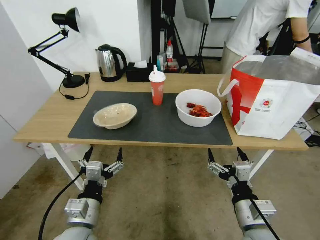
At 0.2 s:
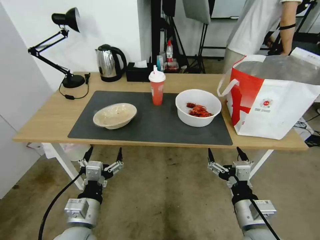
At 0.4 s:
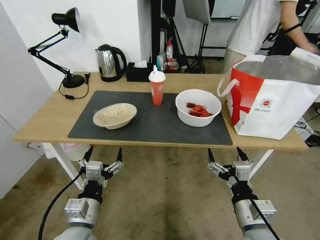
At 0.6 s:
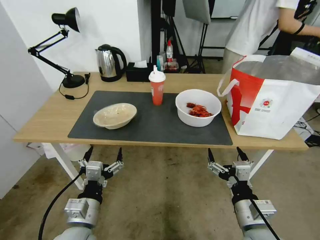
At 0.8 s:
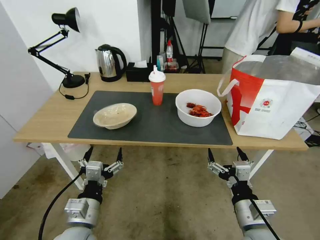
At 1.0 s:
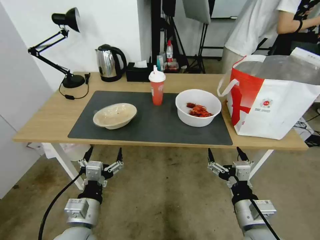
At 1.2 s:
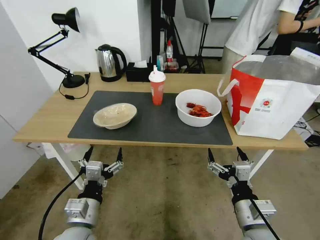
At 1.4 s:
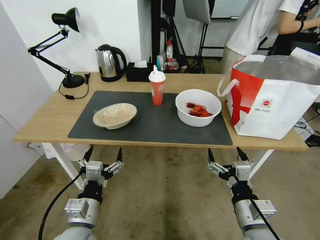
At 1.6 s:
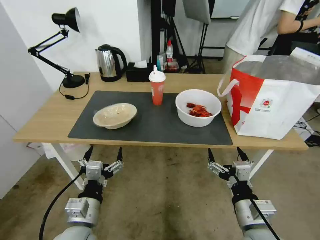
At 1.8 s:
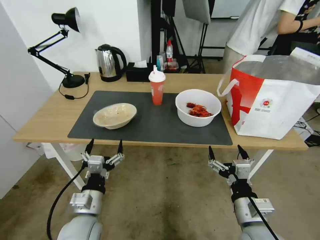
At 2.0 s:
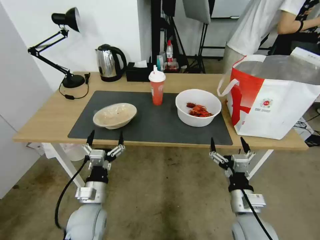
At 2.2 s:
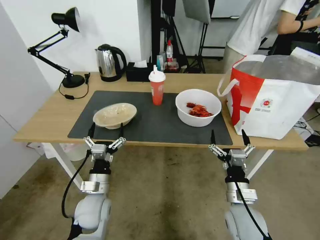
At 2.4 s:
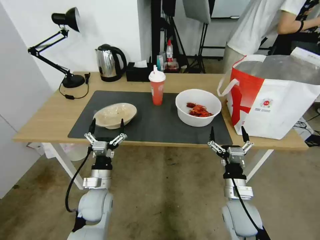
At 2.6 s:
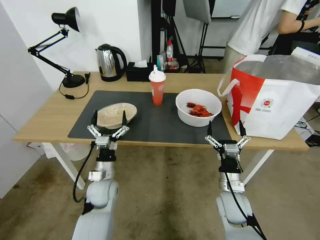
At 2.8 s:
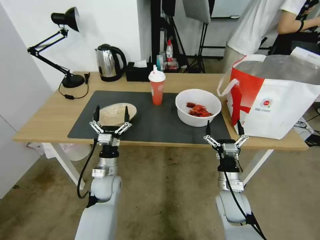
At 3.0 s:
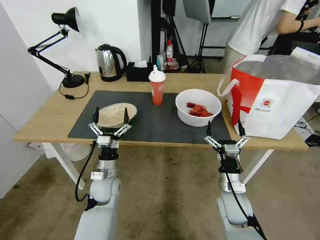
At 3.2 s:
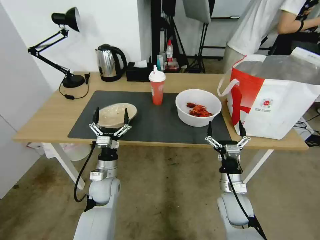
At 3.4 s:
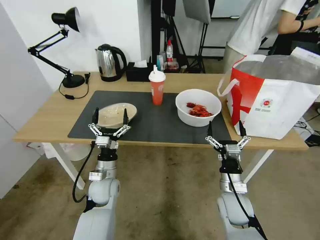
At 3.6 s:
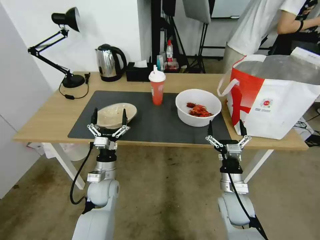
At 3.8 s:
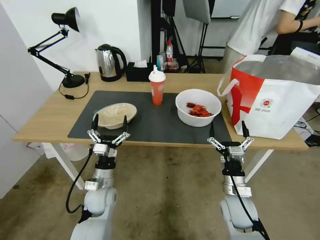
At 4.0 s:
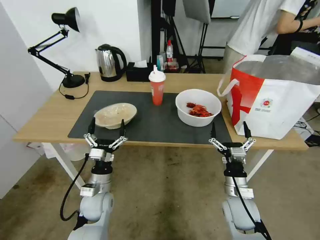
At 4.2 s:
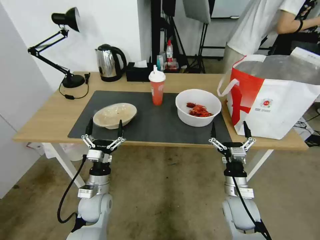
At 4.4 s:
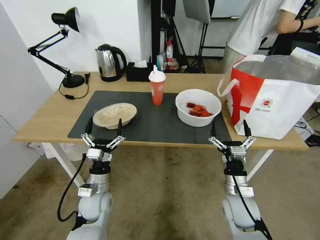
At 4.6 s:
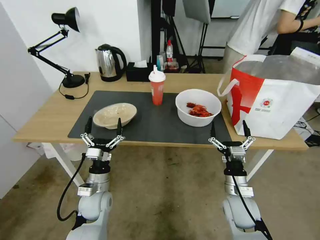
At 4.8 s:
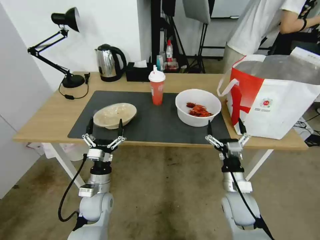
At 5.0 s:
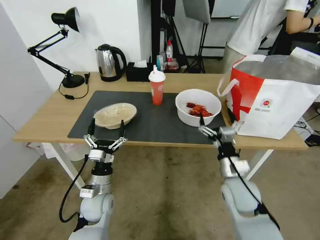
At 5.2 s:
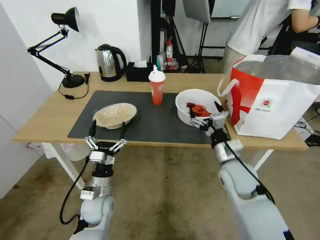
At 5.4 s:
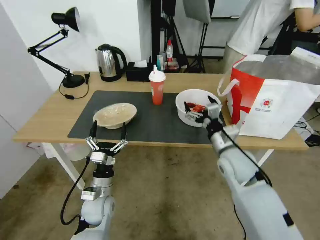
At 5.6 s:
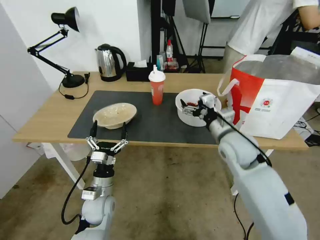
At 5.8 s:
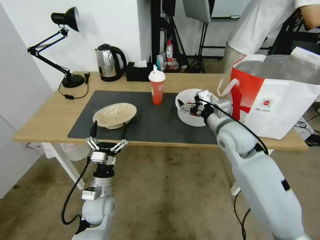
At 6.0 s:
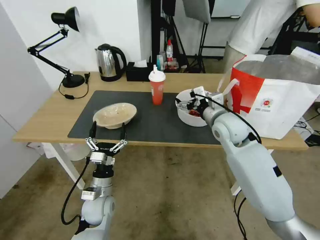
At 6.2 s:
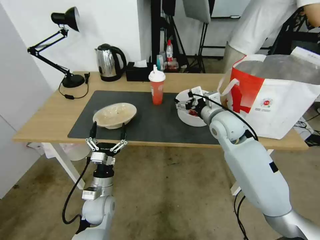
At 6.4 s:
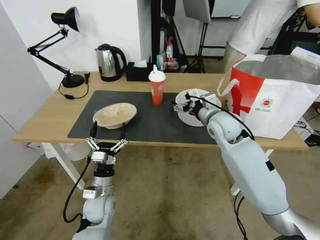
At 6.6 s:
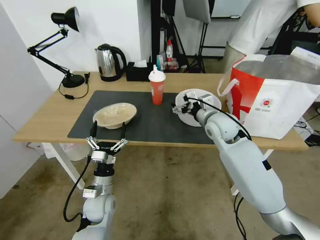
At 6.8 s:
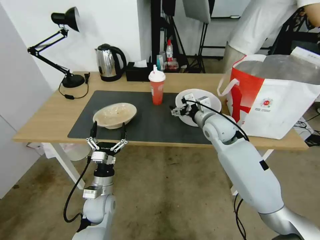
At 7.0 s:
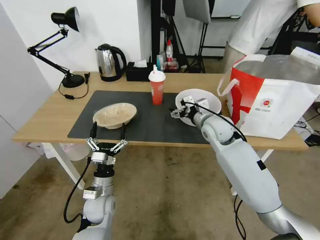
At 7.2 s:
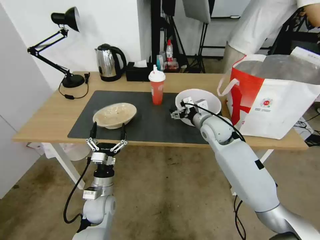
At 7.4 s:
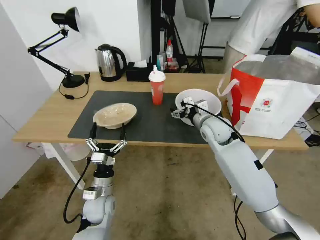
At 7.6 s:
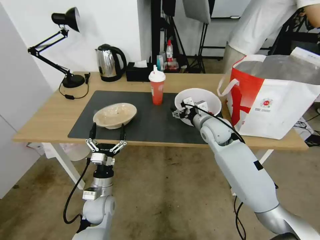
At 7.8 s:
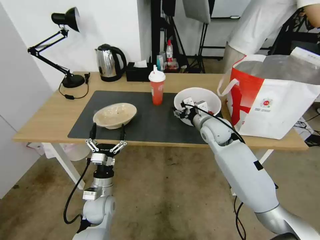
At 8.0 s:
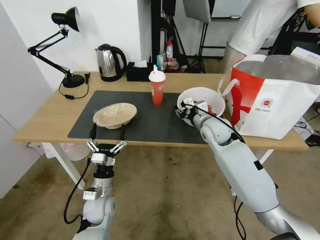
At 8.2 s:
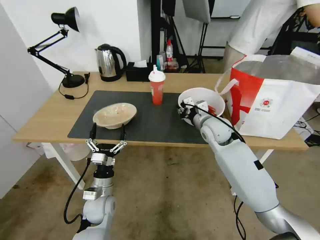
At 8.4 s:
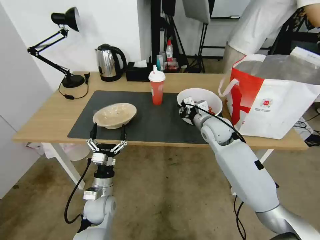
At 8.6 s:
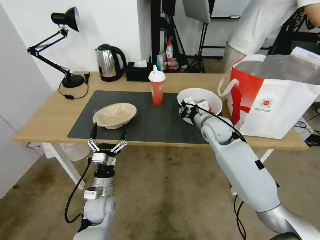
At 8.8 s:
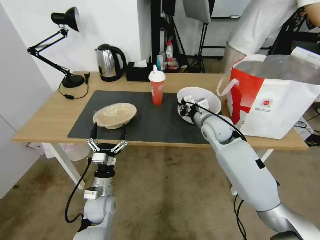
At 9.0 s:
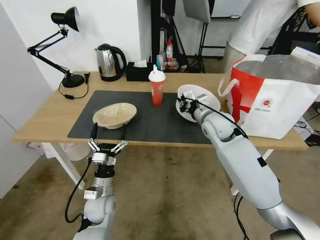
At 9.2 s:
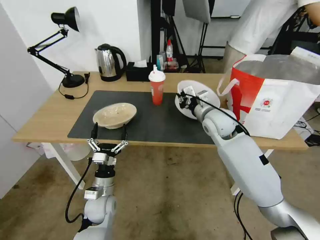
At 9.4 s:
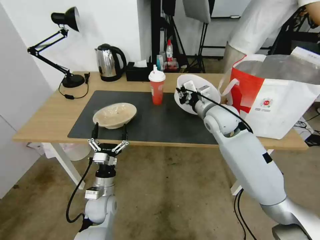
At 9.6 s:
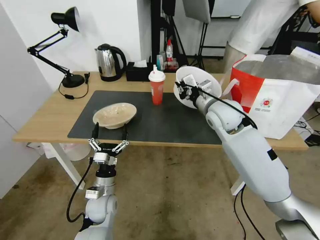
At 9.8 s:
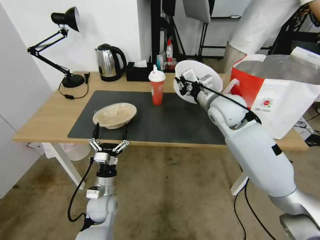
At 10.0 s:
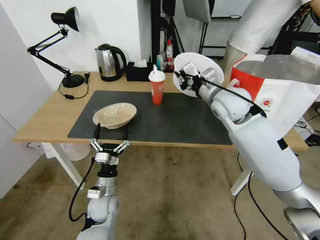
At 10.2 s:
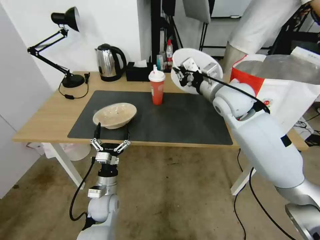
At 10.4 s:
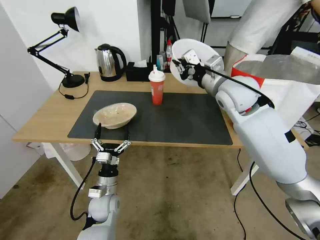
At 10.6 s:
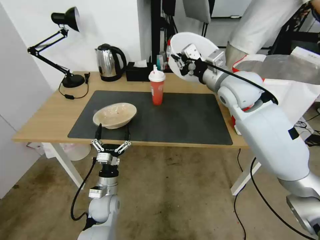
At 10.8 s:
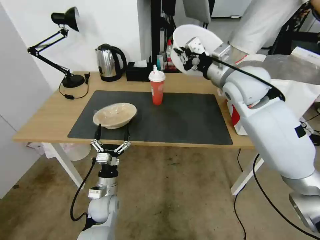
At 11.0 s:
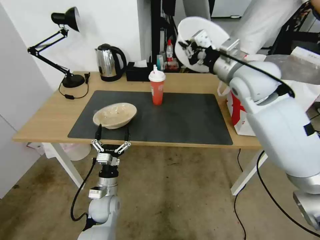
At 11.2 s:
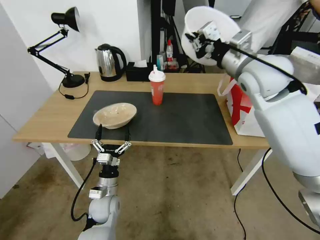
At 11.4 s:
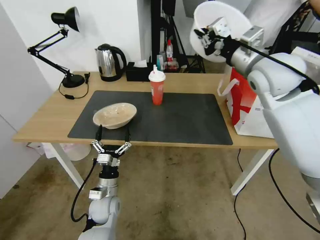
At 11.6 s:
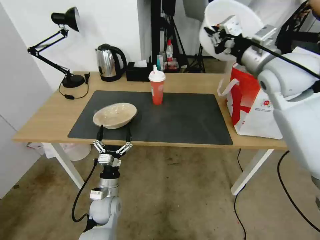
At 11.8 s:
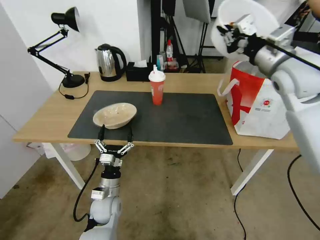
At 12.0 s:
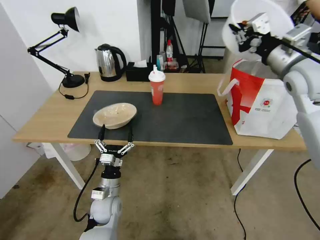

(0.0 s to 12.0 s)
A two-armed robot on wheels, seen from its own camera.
Task of the whole recording: Pick up the trash from the table and place it into the takeout bag.
1.6 s - 3.0 s: The two grippers go roughly 15 cm forward and downward.
3.0 s - 4.4 s: The left gripper changes place by some 5 cm.
4.4 s - 6.0 s: The right gripper heads upward and forward, covering about 25 cm.
6.0 s - 7.6 s: The right gripper goes about 5 cm downward.
7.6 s - 9.0 s: The right gripper closes up.
9.0 s - 10.4 s: The right gripper is displaced upward by some 15 cm.
10.4 s - 12.0 s: The right gripper shifts some 15 cm to the right and upward.

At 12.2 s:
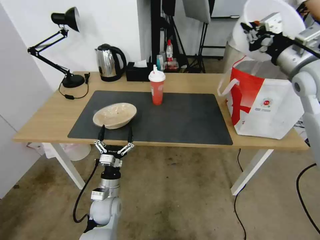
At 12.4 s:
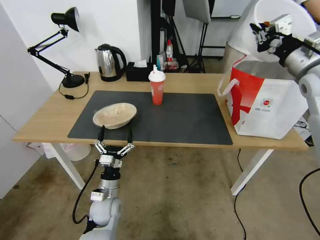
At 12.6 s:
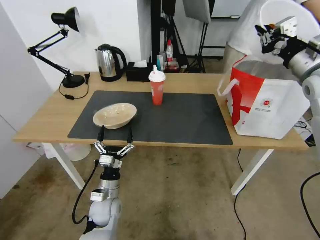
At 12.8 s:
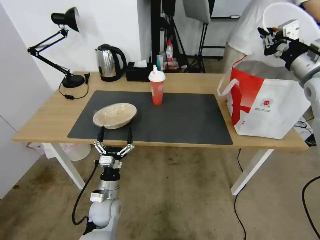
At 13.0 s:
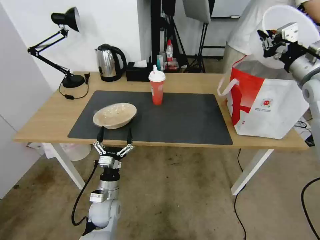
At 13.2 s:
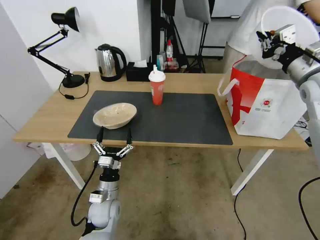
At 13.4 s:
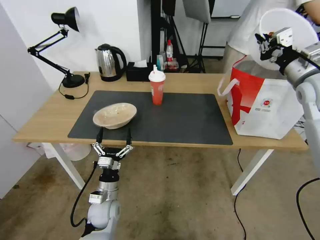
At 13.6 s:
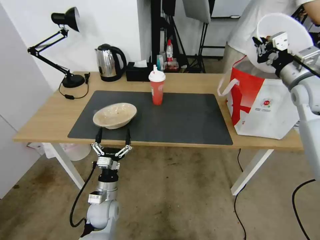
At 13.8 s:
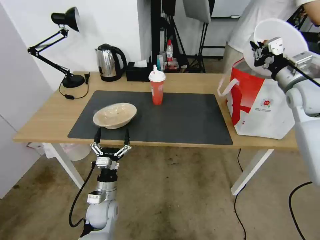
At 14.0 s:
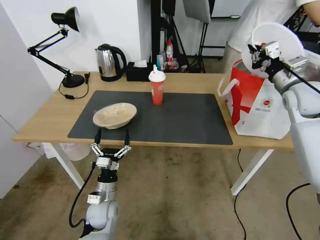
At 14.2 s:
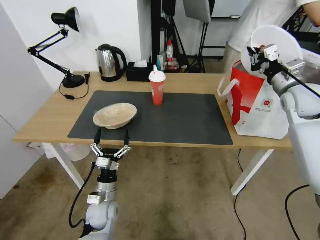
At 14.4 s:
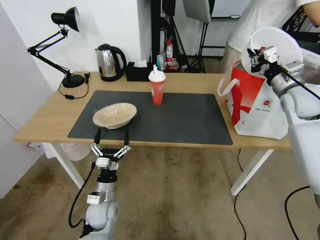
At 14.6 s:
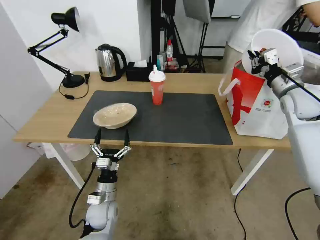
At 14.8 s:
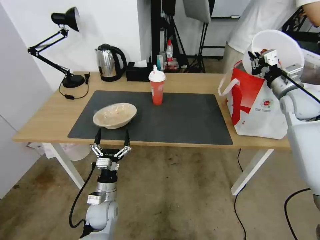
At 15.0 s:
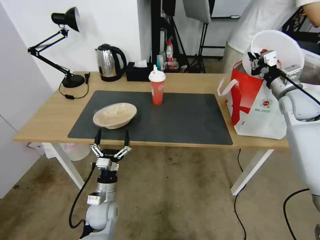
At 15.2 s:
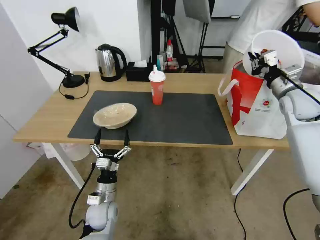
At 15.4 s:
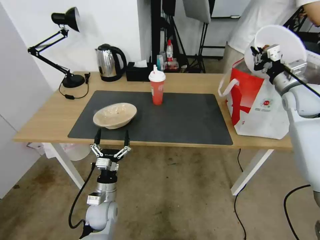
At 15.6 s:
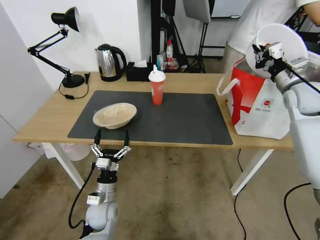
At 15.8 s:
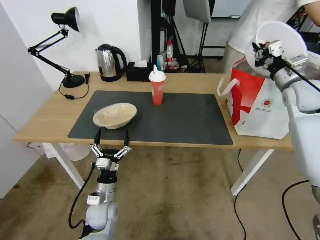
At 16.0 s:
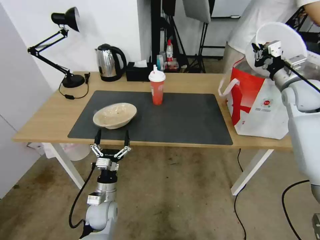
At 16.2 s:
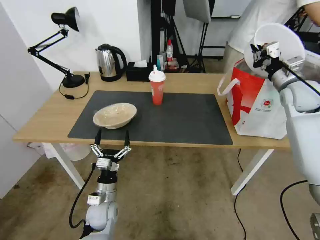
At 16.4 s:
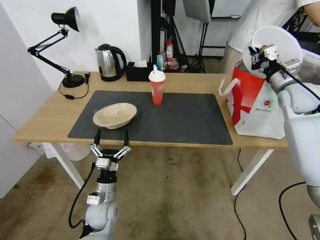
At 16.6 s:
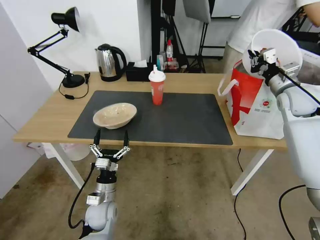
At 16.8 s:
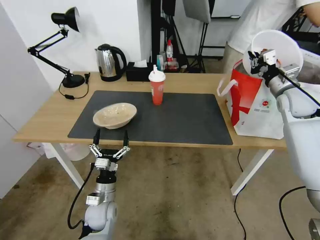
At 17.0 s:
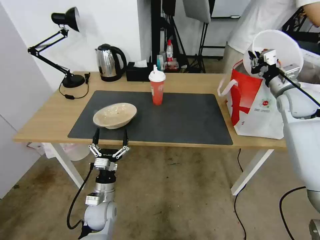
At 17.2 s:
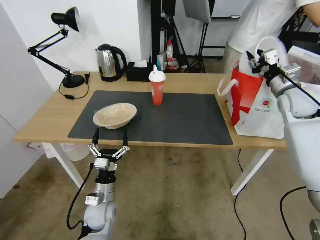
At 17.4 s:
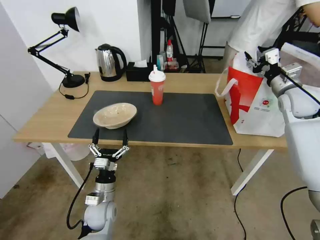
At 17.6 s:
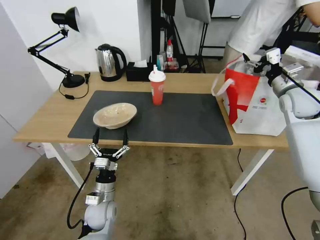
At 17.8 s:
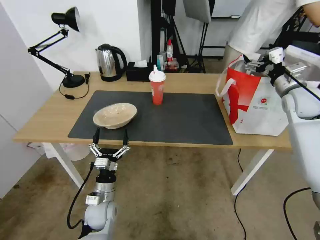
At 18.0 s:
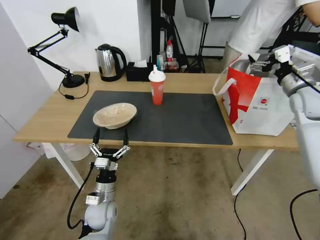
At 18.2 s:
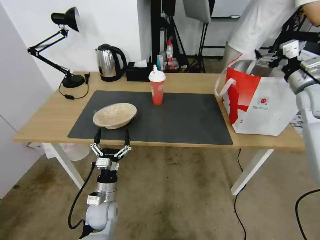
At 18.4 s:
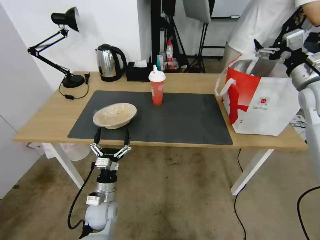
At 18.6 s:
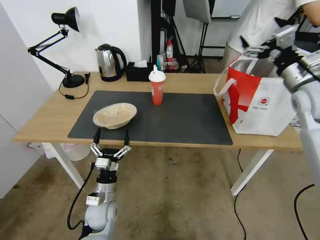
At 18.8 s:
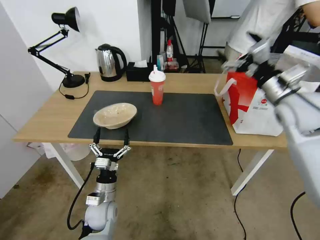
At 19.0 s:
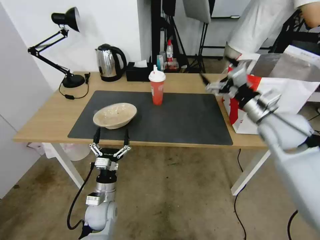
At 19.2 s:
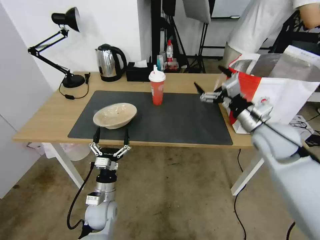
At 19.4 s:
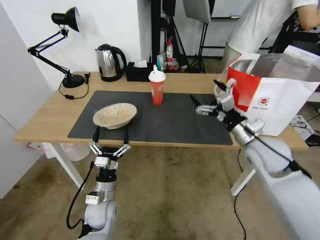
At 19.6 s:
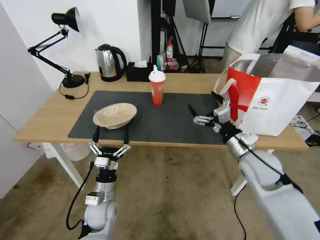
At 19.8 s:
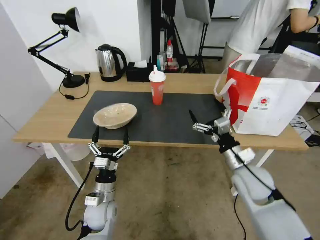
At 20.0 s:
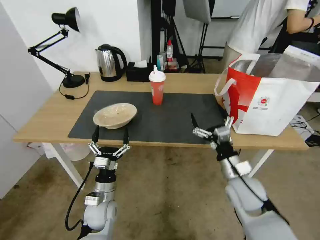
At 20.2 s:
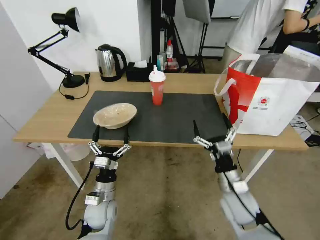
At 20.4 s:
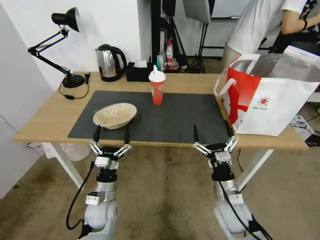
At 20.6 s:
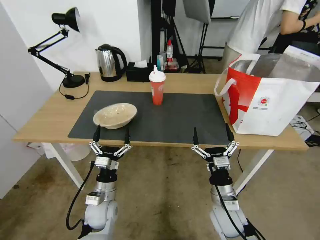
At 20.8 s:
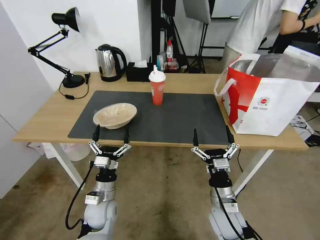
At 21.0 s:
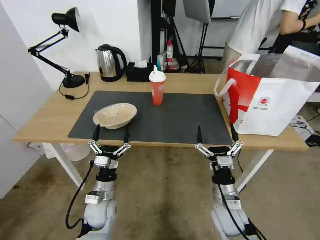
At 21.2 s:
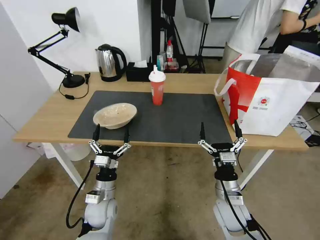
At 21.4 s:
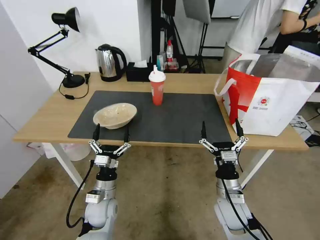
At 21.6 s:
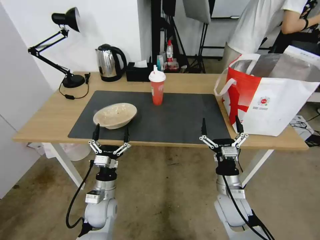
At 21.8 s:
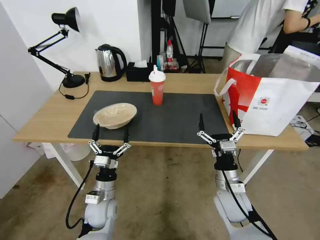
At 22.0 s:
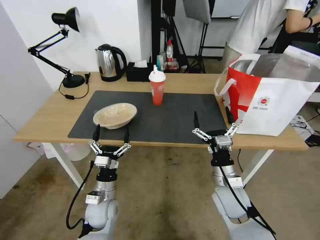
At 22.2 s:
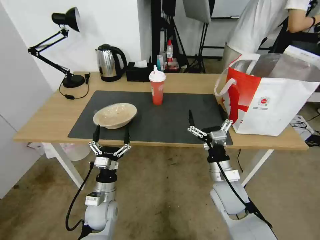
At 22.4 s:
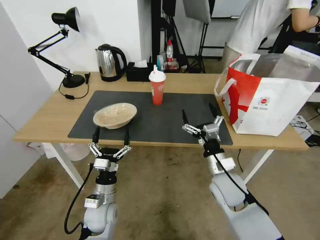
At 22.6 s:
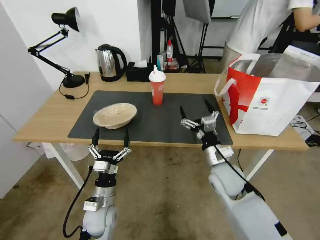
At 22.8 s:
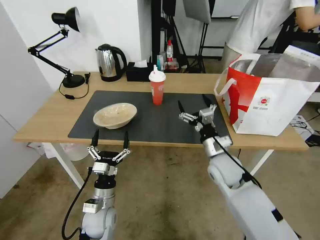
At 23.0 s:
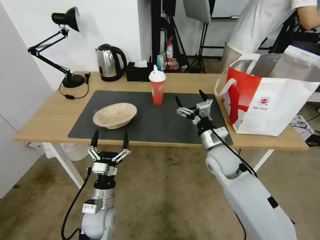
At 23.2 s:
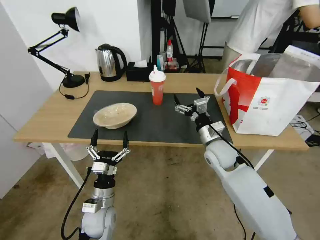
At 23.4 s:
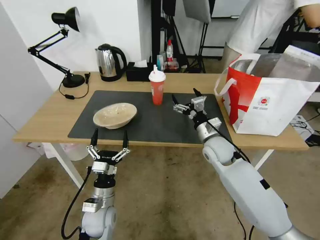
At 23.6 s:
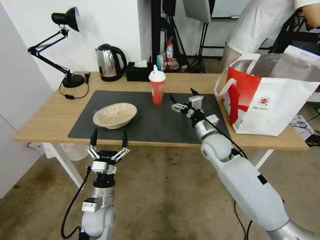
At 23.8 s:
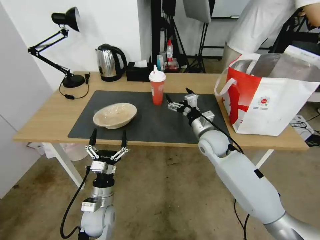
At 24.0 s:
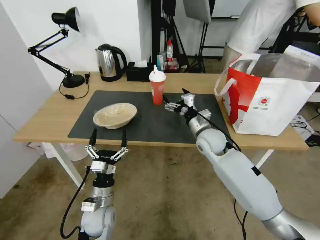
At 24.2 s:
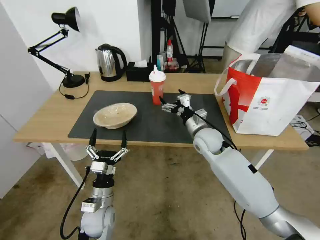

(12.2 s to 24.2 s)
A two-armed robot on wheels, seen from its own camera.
Task of the whole recording: Pick up the trash from the table and place it into the takeout bag.
12.2 s - 13.8 s: The right gripper moves downward, about 5 cm.
13.8 s - 15.2 s: The right gripper shifts by roughly 5 cm.
15.2 s - 16.6 s: The grippers stay close to where they were, moving slightly.
16.6 s - 18.2 s: The right gripper changes place by approximately 5 cm, and opens.
18.2 s - 19.8 s: The right gripper travels downward, to the left and backward by some 30 cm.
19.8 s - 21.2 s: The right gripper is displaced downward and backward by some 10 cm.
21.2 s - 22.6 s: The right gripper travels upward and forward by some 10 cm.
22.6 s - 24.2 s: The right gripper moves forward, roughly 15 cm.
